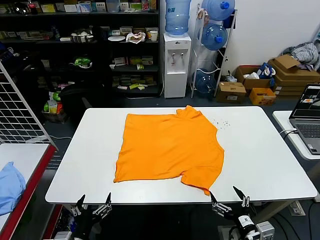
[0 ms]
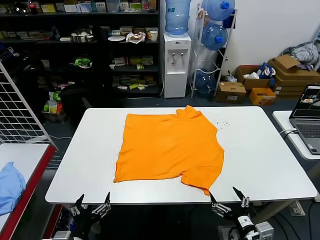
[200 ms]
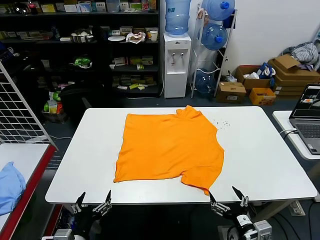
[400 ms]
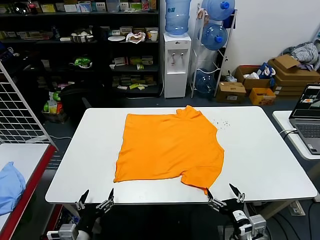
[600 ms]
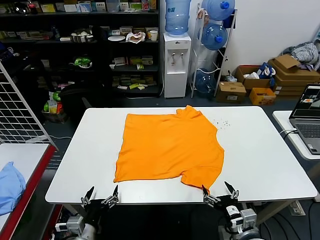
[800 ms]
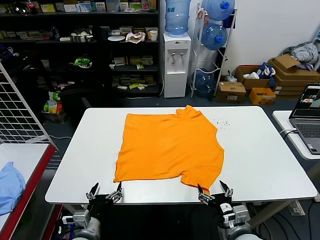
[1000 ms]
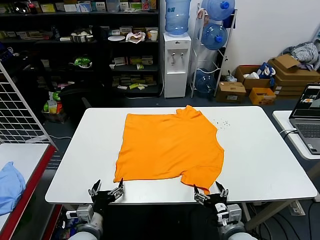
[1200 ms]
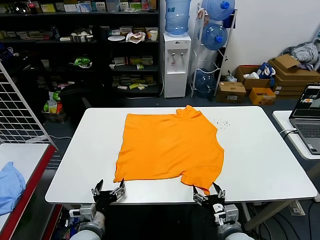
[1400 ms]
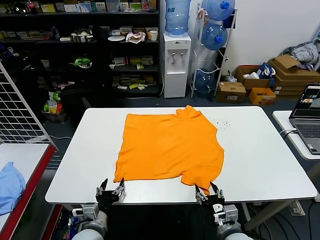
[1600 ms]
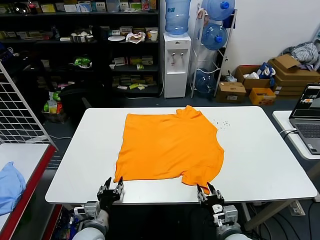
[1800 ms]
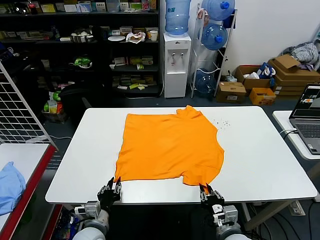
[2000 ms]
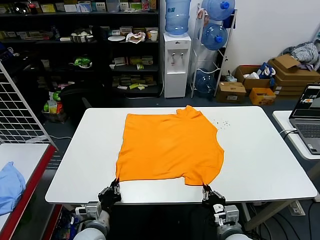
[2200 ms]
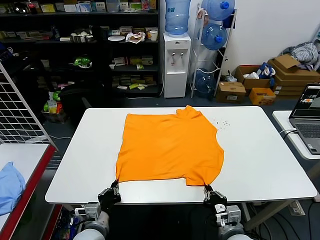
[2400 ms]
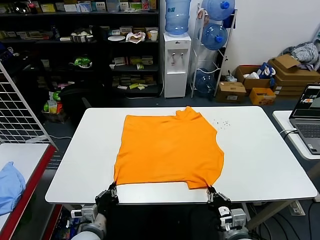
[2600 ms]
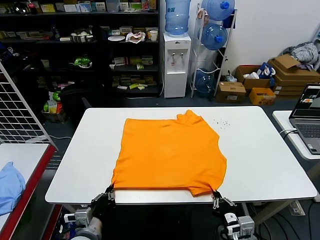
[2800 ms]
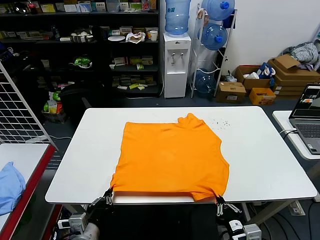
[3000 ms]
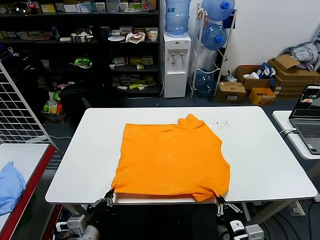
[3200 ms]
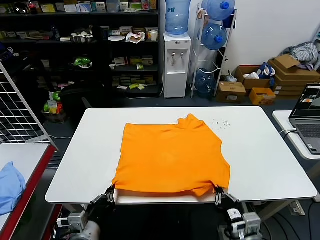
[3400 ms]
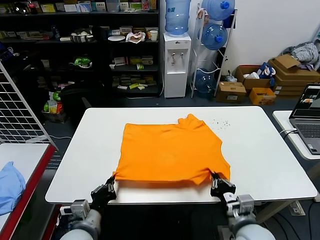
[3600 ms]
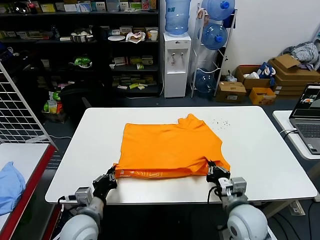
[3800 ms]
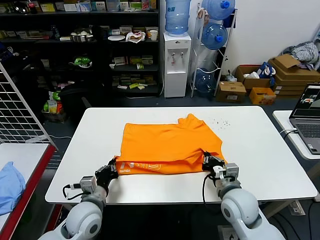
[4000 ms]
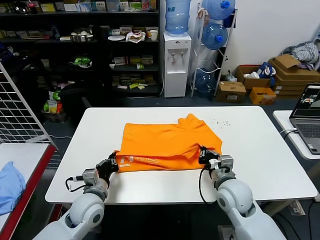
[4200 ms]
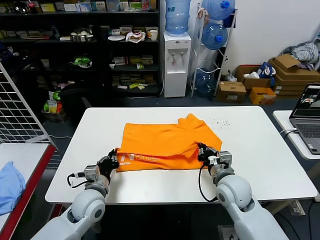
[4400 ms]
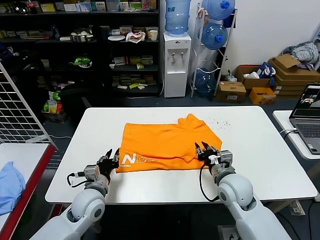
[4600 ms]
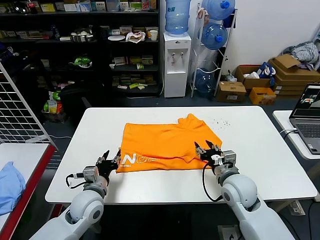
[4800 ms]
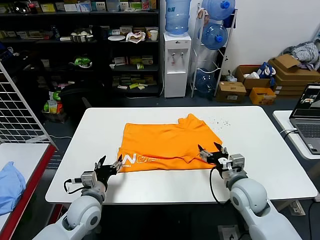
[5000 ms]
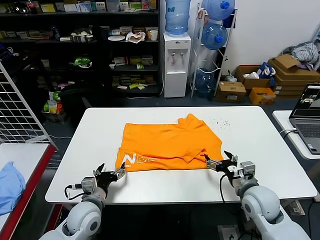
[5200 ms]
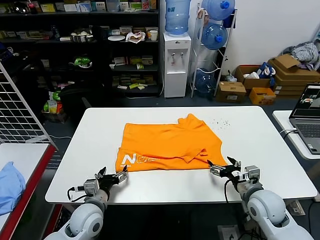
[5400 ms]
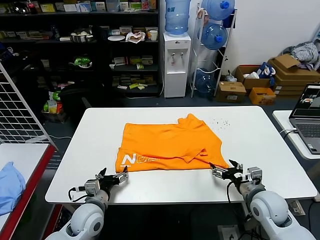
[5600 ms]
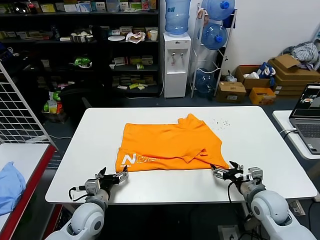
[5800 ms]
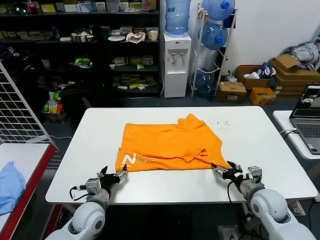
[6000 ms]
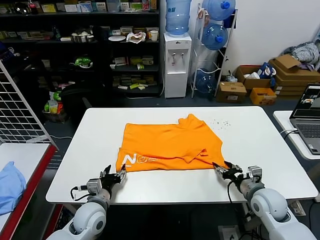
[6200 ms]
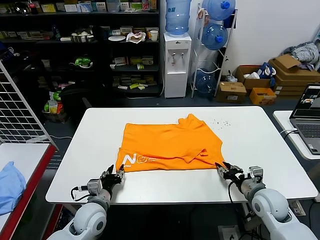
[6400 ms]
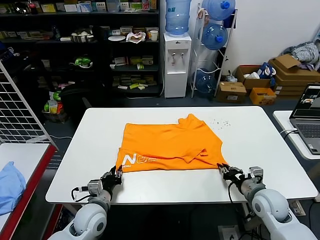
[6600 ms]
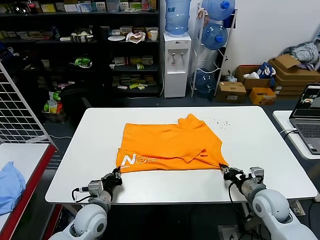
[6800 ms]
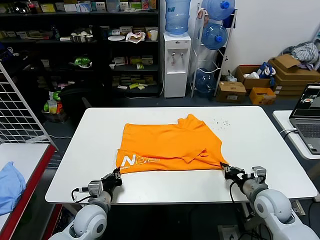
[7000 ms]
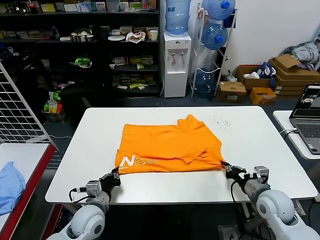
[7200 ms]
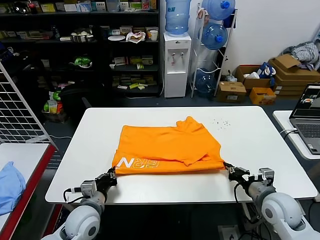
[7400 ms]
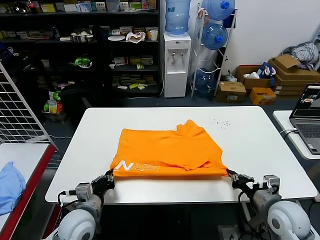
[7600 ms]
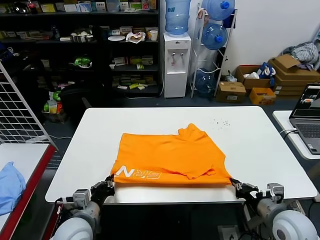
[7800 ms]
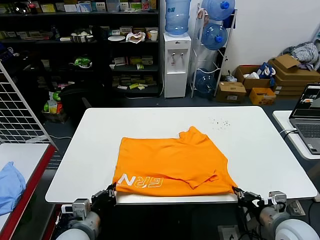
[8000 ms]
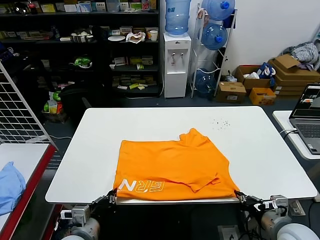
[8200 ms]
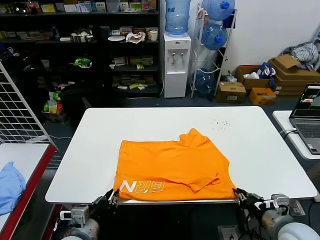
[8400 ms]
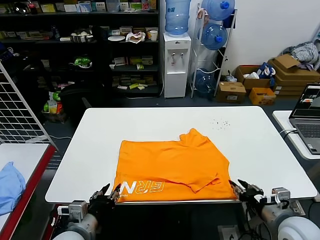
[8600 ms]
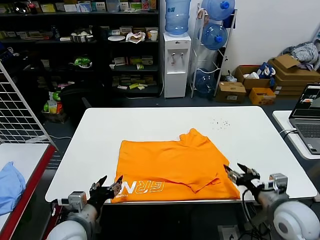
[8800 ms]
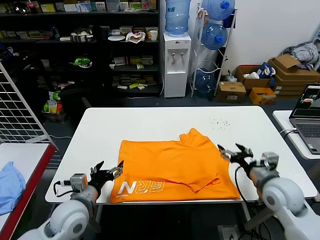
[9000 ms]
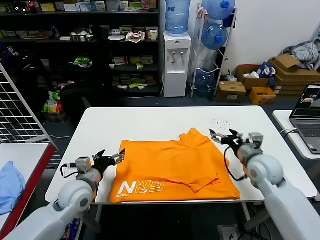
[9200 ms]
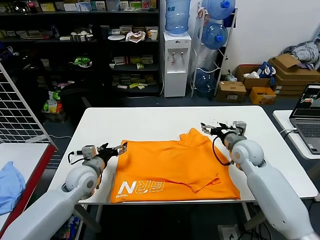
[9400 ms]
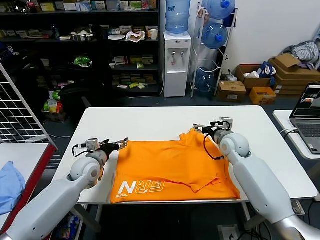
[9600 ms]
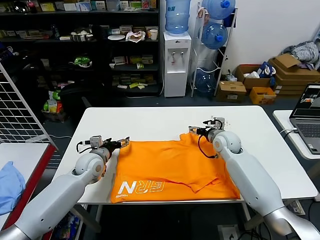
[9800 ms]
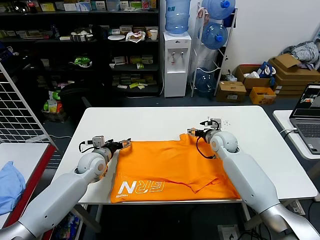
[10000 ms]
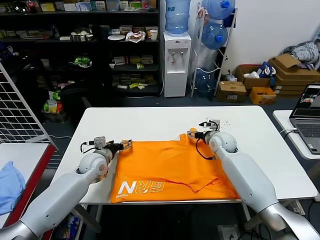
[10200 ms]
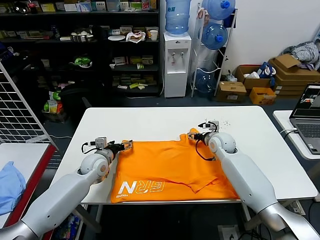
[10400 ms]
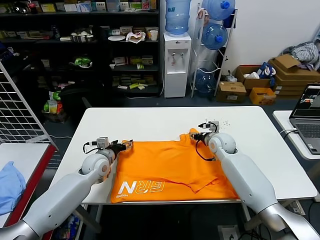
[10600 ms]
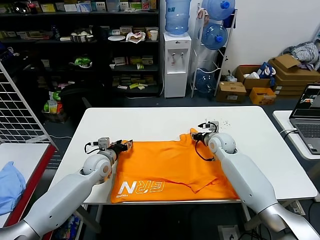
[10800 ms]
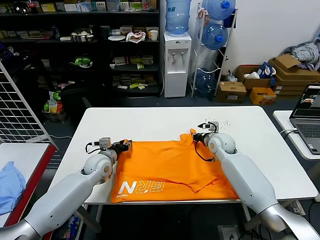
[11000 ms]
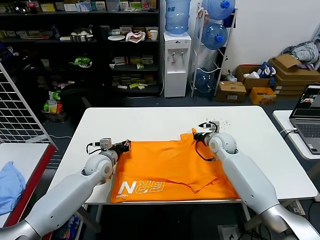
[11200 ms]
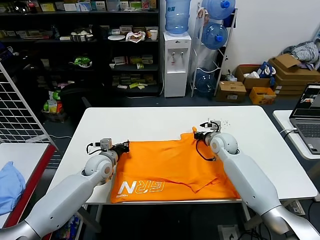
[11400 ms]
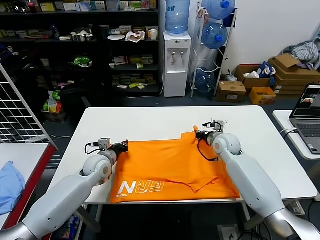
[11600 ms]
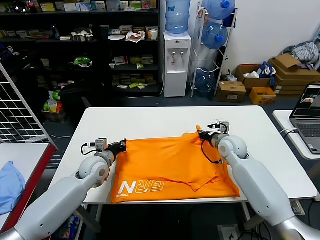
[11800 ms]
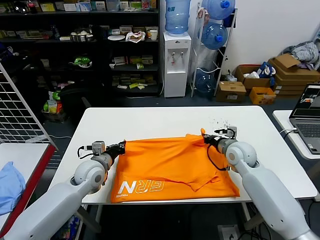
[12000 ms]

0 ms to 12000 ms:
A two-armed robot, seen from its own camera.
Task of the whole recording: fold and organize the clothes.
Step, 0 ms to 2200 ms: use both grippers simultaneously to clamp the lower edge of the clothing fabric.
Step, 2400 ms to 4400 ms: use both grippers to drag the lower edge of the fabric forward and fold it over the upper edge.
Step, 4600 ms to 8400 ms: Drag the clothes downward with both gripper.
Step, 8600 ms to 11200 ms: use both grippers simultaneously to clamp the upper edge of the clothing fabric.
1600 ms to 3000 ms: The left gripper moves upward, about 5 cm, and closes its fingers, while the right gripper goes some 10 cm backward and upward, and closes up.
3000 ms to 4400 ms: Both grippers move forward, roughly 20 cm.
4400 ms to 6000 ms: The left gripper shifts by about 5 cm, and opens. Meanwhile the right gripper travels to the right by about 10 cm, and opens.
6000 ms to 7600 ms: The left gripper changes place by about 5 cm, and closes up; the right gripper travels backward by some 5 cm, and closes.
7600 ms to 9000 ms: The left gripper goes backward and returns, approximately 10 cm each way, and opens up; the right gripper moves forward, approximately 10 cm, and opens its fingers.
9000 ms to 10400 ms: Both grippers travel together forward, about 20 cm.
10400 ms to 12000 ms: The right gripper goes approximately 10 cm backward, and closes, while the left gripper ends up some 5 cm from where it was, and closes its fingers.

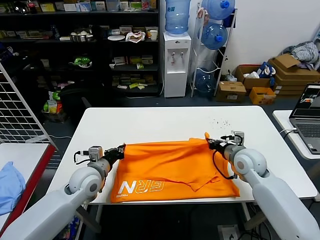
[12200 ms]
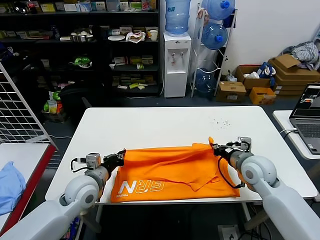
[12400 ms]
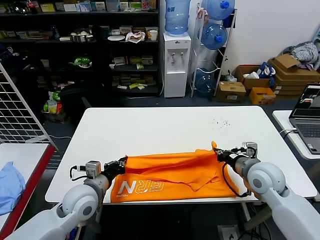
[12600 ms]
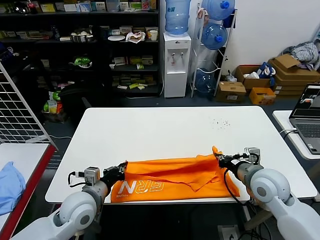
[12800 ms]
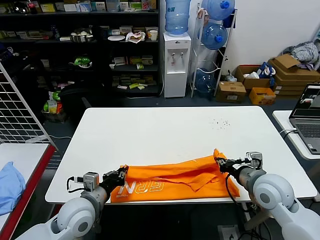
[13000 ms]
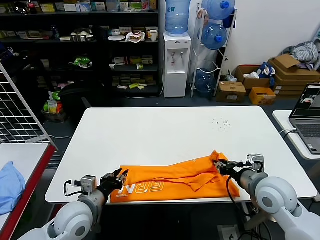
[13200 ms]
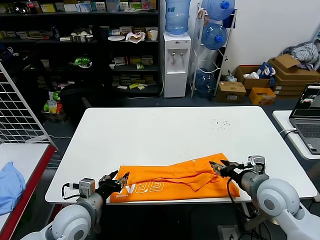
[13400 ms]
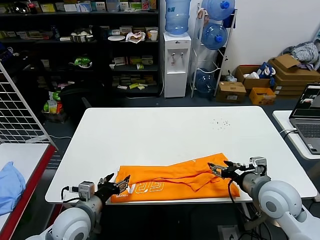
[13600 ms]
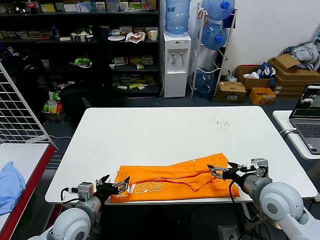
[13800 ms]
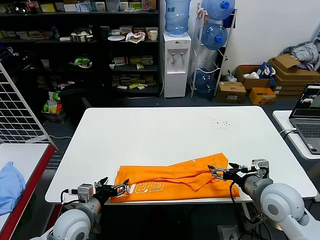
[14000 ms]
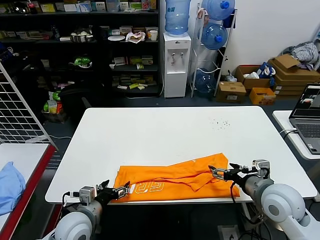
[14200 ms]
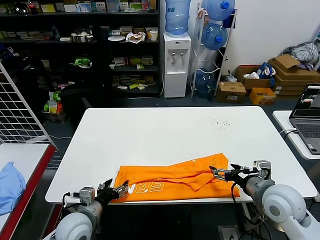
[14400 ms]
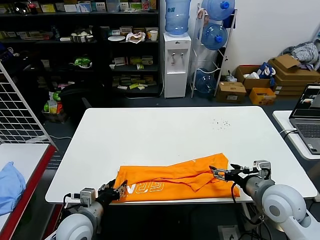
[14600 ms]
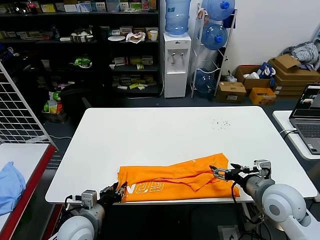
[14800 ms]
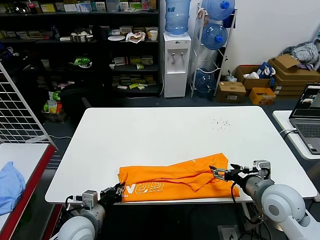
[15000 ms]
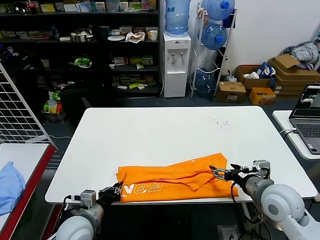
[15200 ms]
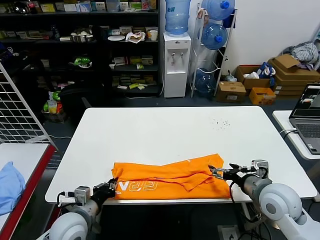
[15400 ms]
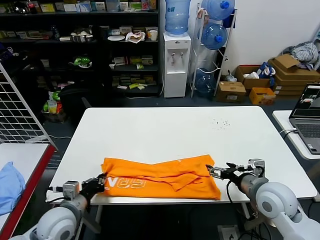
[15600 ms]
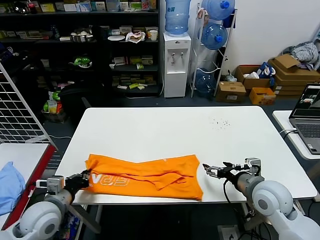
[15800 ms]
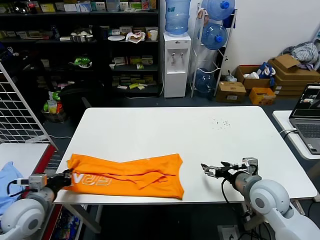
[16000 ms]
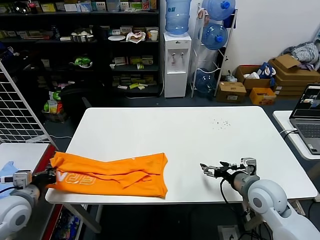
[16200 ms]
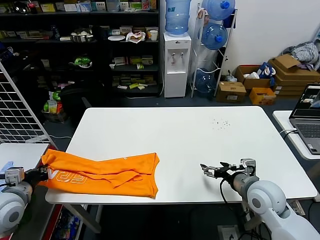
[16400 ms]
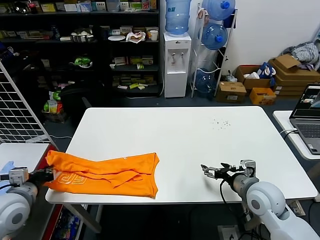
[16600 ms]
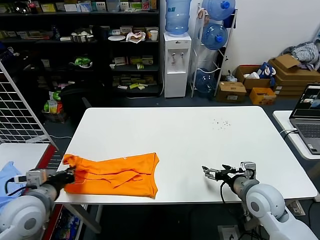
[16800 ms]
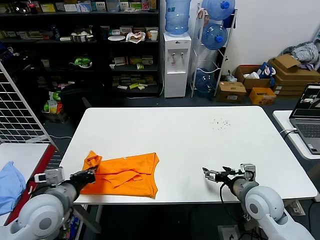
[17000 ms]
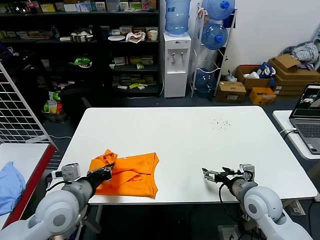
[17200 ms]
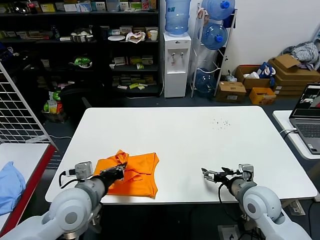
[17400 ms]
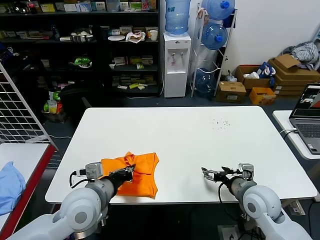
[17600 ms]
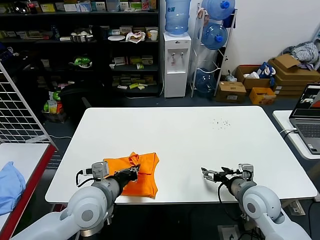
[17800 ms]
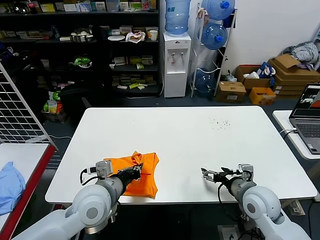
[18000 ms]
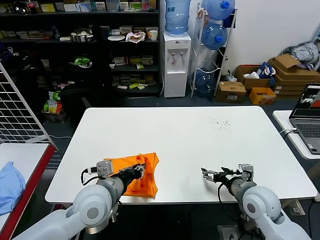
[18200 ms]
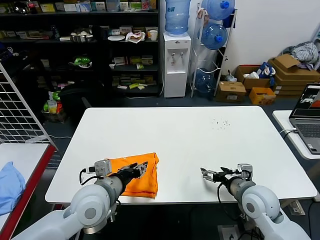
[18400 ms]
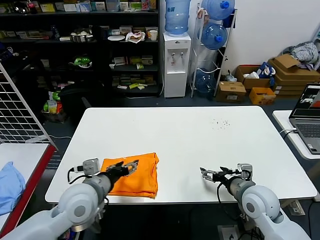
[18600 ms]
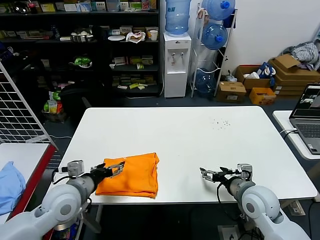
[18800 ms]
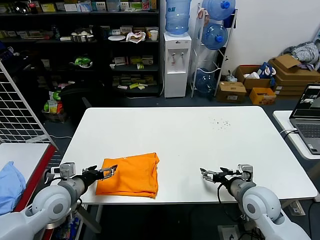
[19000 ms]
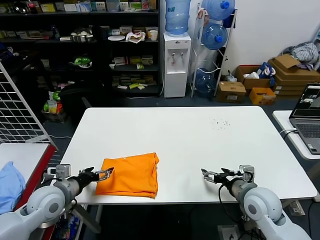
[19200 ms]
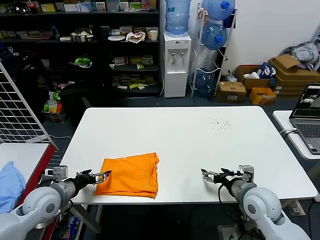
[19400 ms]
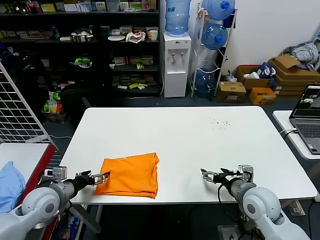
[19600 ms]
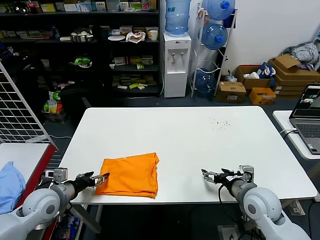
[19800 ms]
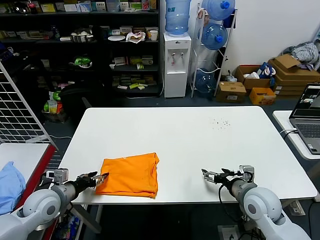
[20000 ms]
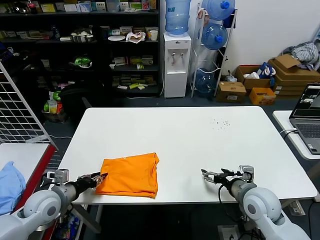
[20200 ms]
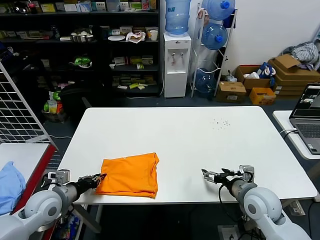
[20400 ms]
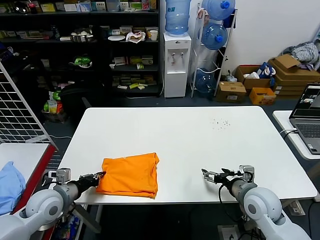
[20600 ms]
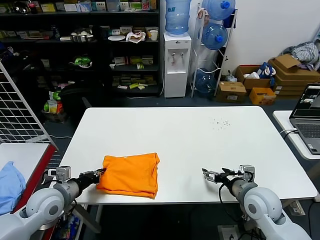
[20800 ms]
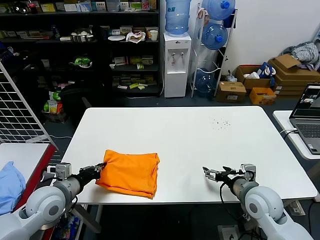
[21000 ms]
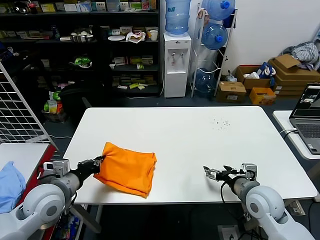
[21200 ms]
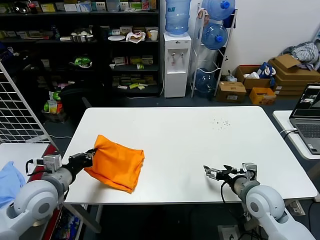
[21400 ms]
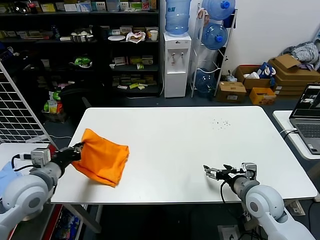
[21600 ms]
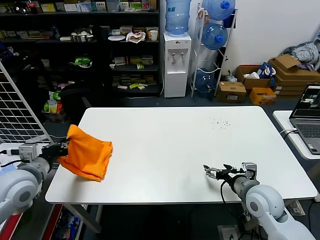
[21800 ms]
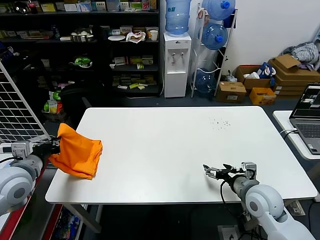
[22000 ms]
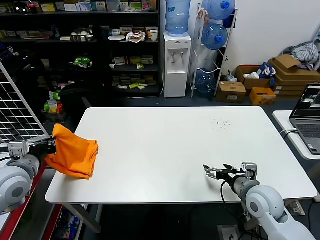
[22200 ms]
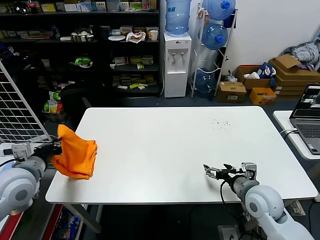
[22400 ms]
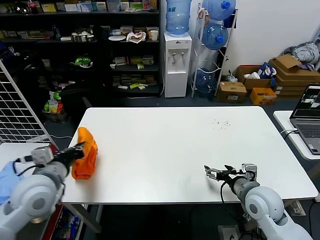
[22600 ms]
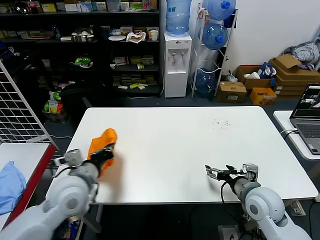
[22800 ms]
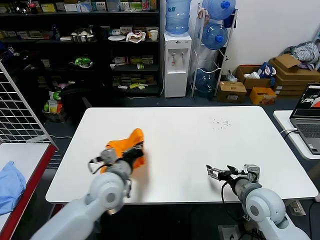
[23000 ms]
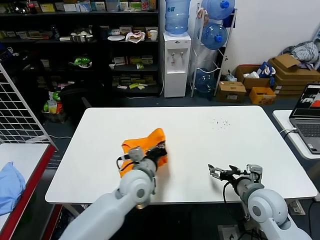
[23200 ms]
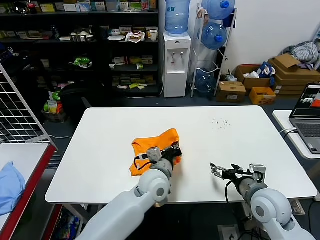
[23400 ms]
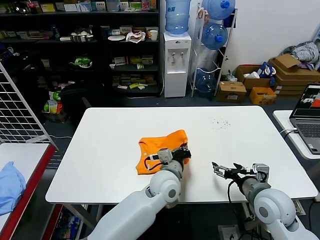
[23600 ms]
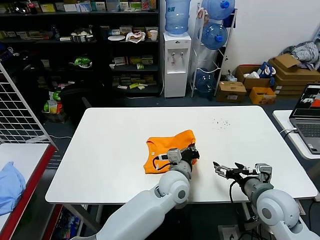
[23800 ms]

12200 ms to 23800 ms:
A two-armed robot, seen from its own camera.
Task of the whole recording: fold and organize the clothes.
Step, 12200 ms to 13200 ms: use both grippers to drag the upper edge of the fabric backward and fold it over the lower edge.
Step, 13400 ms to 15000 ms: use the left gripper to clamp the left edge of the fabric.
Step, 15200 ms to 18200 ms: use the left gripper to drag the left edge of the fabric to the left and folds it over the right edge.
12200 ms to 13600 ms: Both grippers travel together backward, about 15 cm. The right gripper opens up, while the left gripper opens its fingers.
13600 ms to 15000 ms: The left gripper closes up.
15000 ms to 16600 ms: The right gripper moves some 5 cm. The left gripper shifts about 20 cm to the left and upward.
16600 ms to 18000 ms: The left gripper shifts roughly 25 cm to the right.
18000 ms to 19400 ms: The left gripper travels to the left by approximately 15 cm, and opens its fingers.
19400 ms to 21000 ms: The left gripper closes up.
21000 ms to 22400 ms: The left gripper goes approximately 10 cm upward.
22400 ms to 23800 ms: The left gripper moves to the right, some 40 cm.
